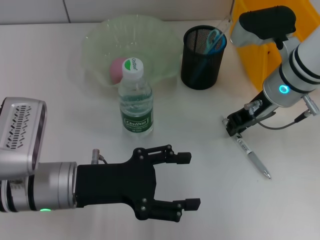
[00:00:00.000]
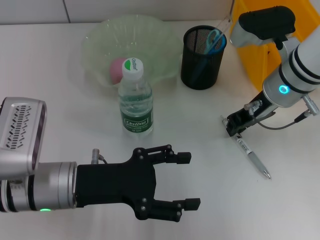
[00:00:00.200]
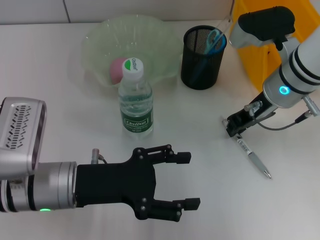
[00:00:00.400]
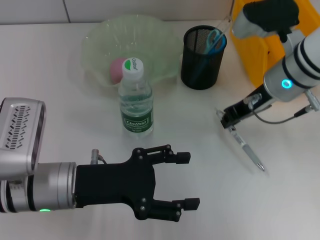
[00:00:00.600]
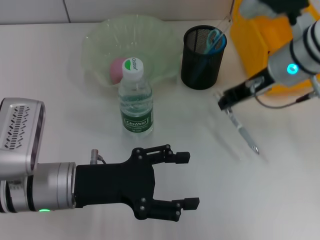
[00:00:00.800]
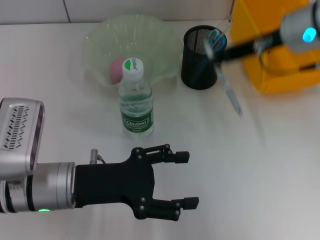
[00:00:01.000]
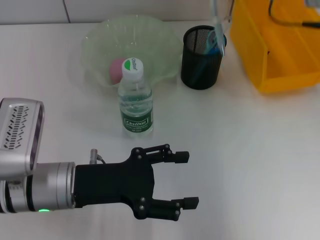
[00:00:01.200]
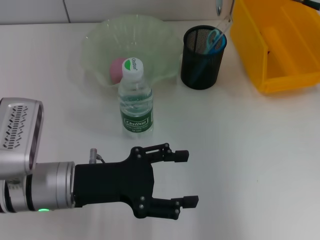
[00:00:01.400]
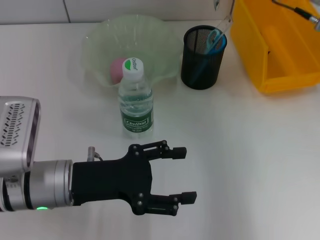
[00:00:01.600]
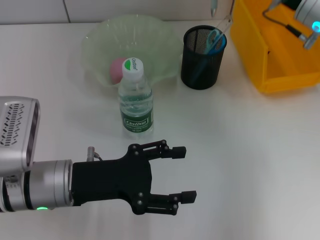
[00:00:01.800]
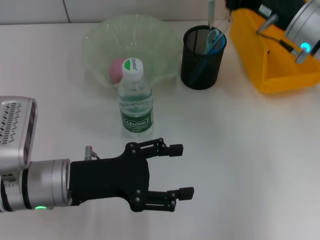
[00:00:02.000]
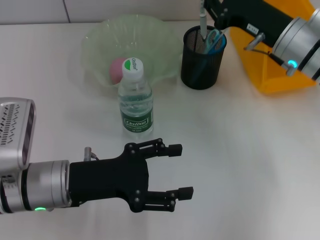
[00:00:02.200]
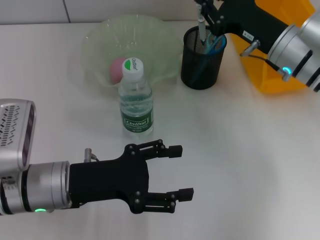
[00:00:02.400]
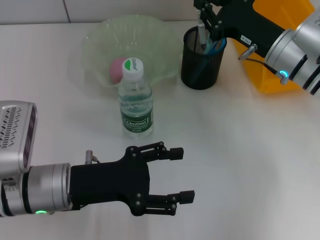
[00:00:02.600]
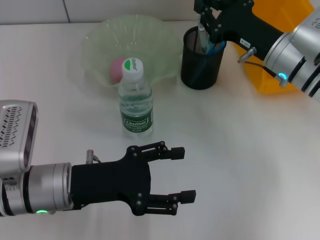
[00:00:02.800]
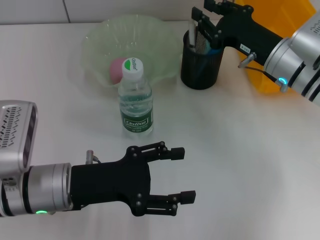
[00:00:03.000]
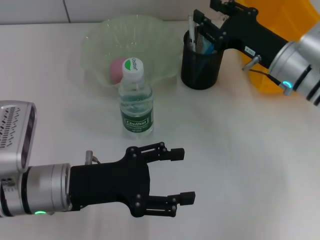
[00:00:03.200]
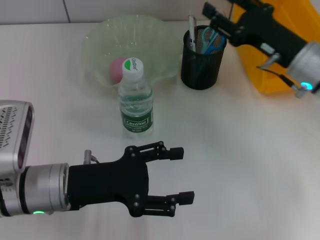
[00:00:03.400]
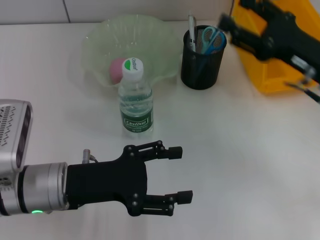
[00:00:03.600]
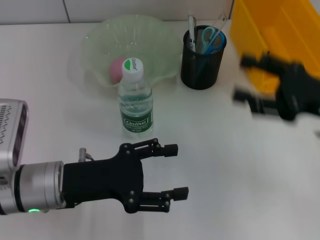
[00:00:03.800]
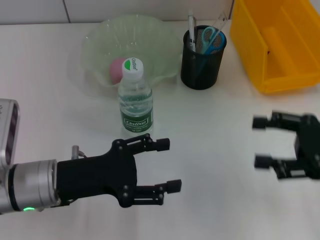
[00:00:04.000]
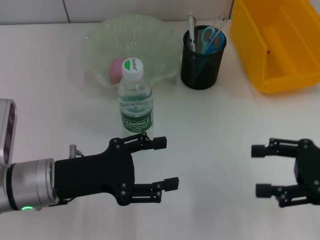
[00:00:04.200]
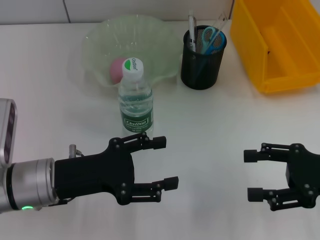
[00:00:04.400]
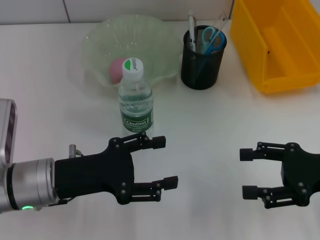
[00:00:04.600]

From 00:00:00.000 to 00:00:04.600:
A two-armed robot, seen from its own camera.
Step, from 00:00:00.400 to 00:00:03.000: Place the gray spring-action pen into the pen holder with the right hand.
From 00:00:00.000 to 00:00:01.600: The right gripper heads upward, covering about 10 cm.
From 00:00:01.600 to 00:00:03.000: The right gripper goes about 10 cm downward.
From 00:00:03.000 to 00:00:04.600: The right gripper shifts about 15 cm backward and to the right, and opens up.
